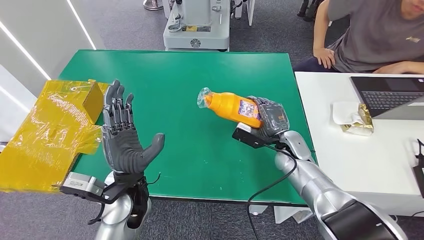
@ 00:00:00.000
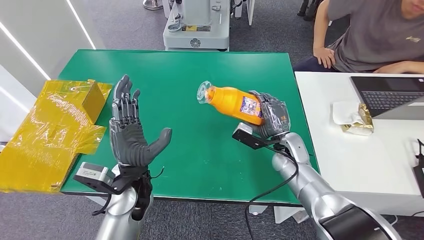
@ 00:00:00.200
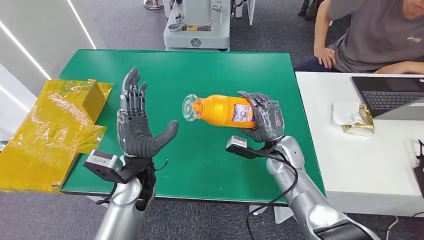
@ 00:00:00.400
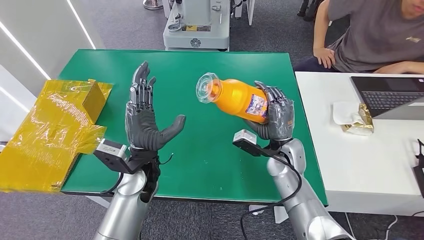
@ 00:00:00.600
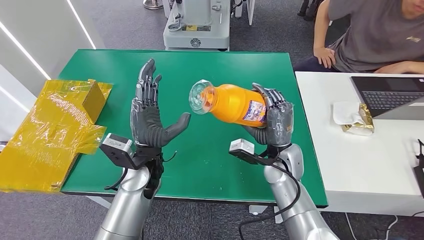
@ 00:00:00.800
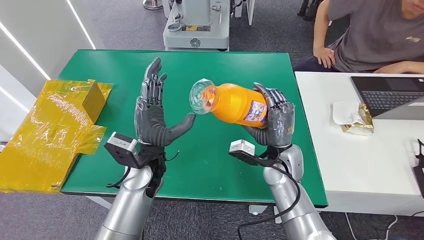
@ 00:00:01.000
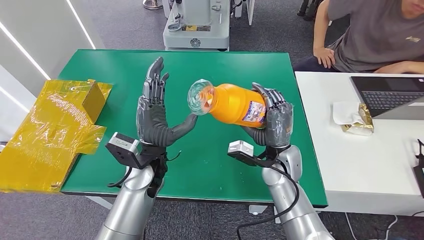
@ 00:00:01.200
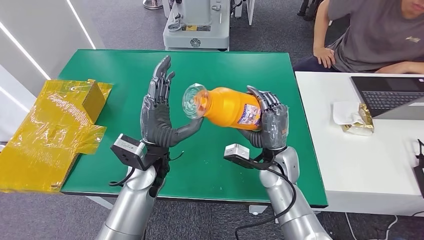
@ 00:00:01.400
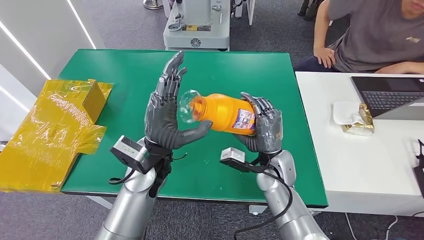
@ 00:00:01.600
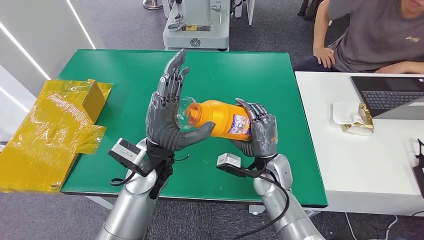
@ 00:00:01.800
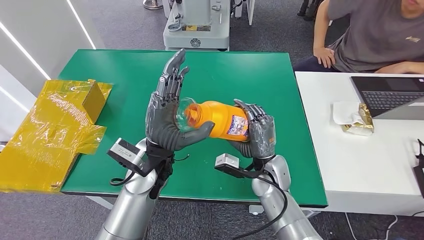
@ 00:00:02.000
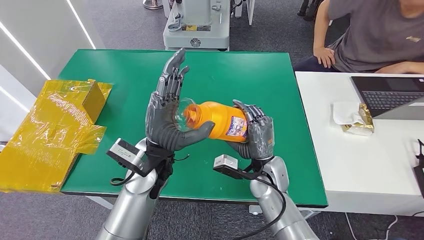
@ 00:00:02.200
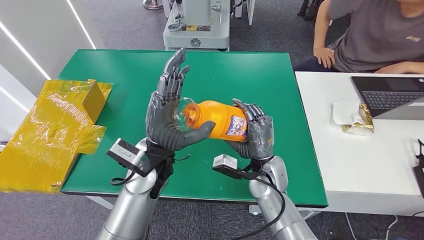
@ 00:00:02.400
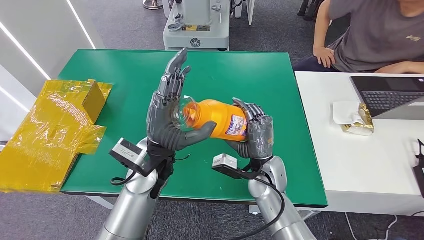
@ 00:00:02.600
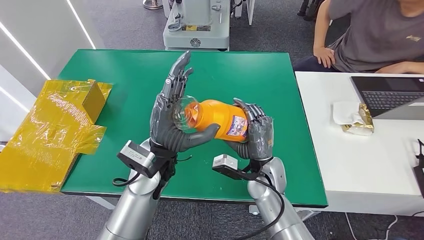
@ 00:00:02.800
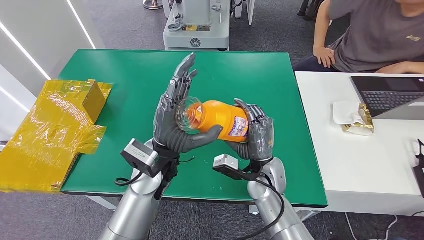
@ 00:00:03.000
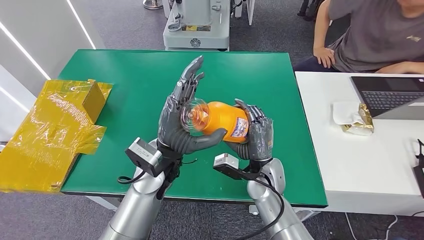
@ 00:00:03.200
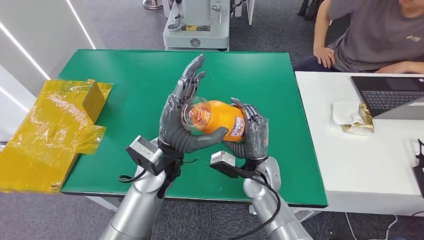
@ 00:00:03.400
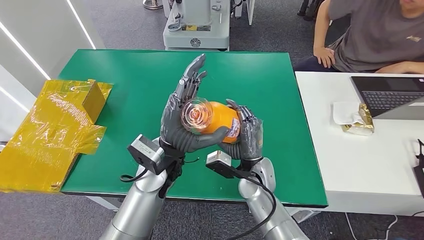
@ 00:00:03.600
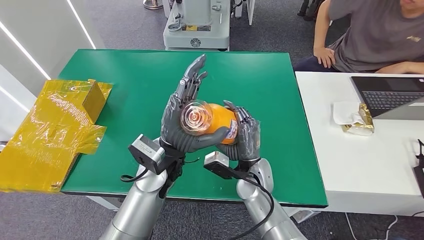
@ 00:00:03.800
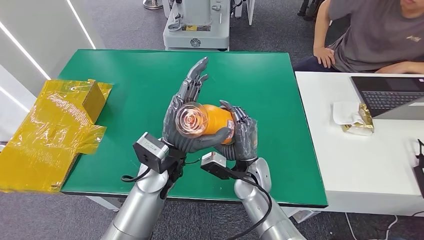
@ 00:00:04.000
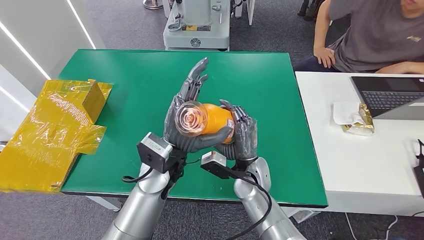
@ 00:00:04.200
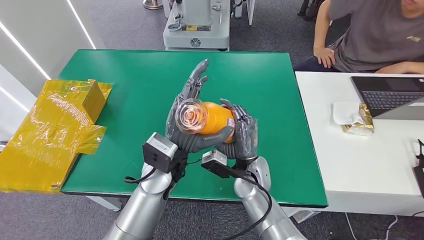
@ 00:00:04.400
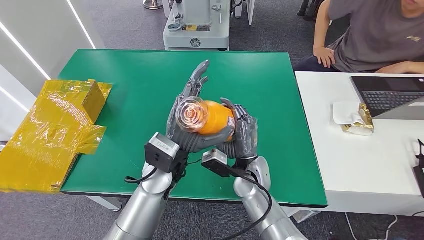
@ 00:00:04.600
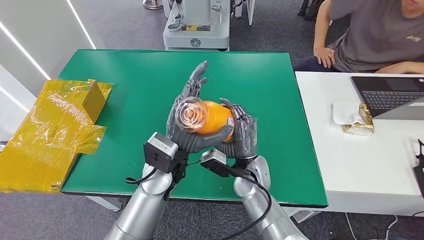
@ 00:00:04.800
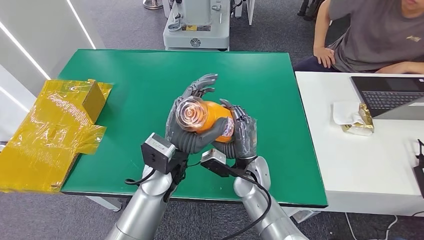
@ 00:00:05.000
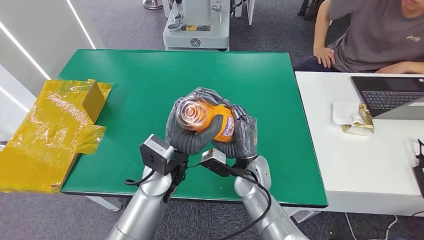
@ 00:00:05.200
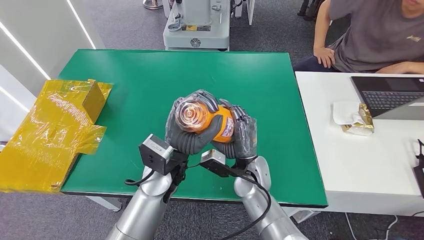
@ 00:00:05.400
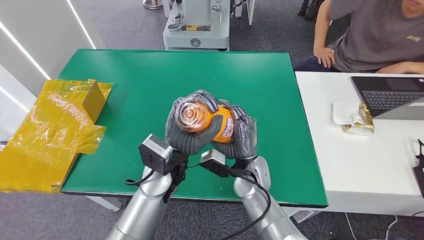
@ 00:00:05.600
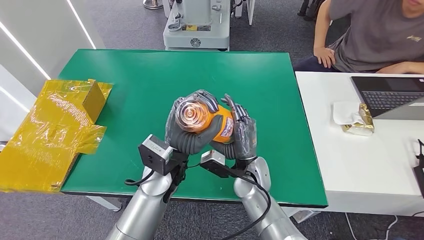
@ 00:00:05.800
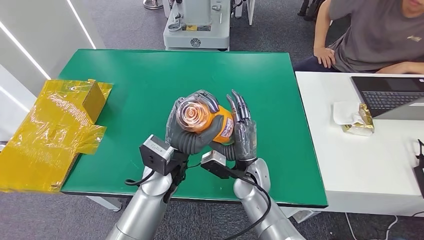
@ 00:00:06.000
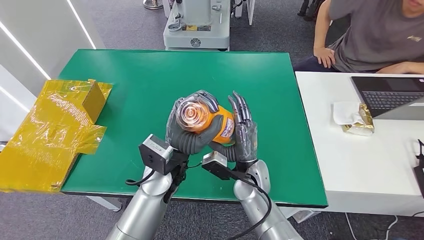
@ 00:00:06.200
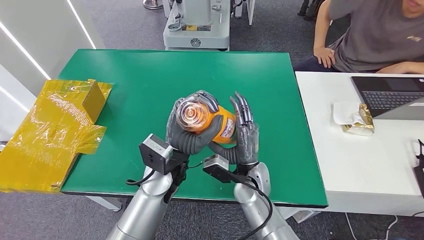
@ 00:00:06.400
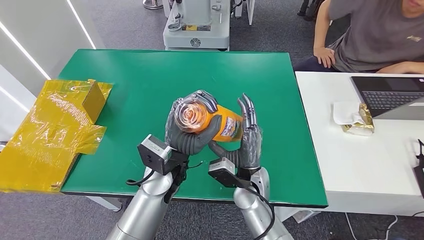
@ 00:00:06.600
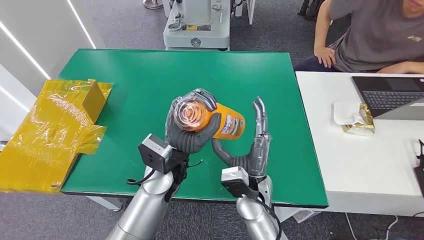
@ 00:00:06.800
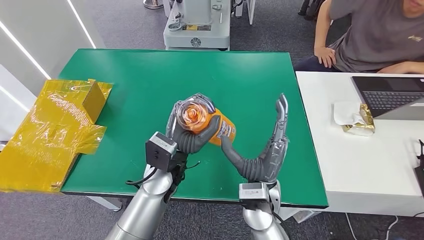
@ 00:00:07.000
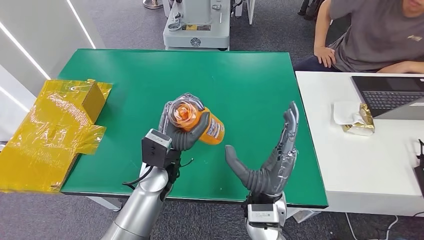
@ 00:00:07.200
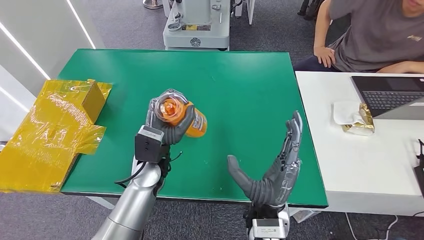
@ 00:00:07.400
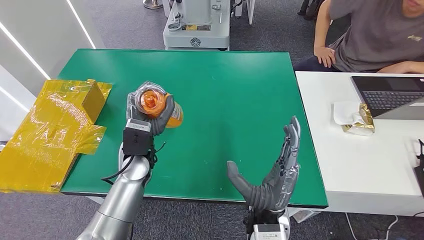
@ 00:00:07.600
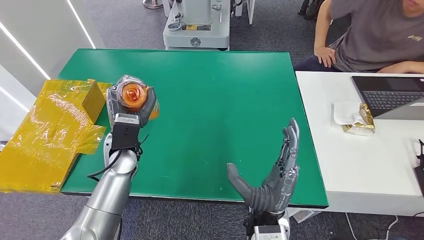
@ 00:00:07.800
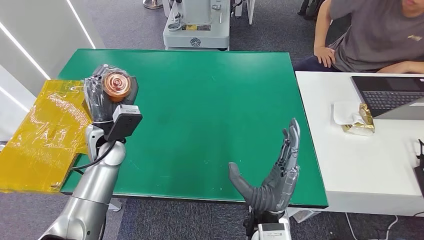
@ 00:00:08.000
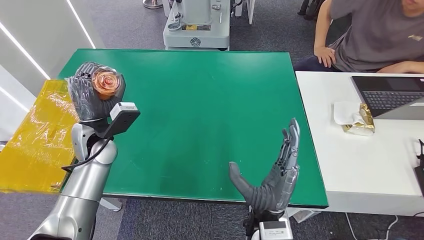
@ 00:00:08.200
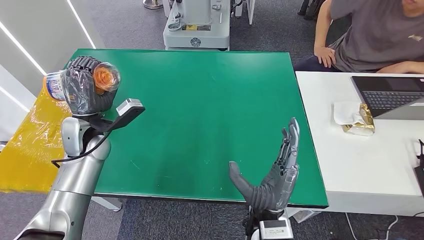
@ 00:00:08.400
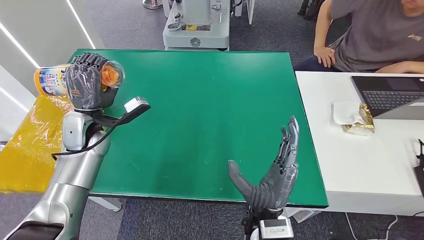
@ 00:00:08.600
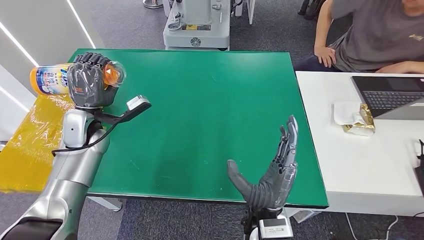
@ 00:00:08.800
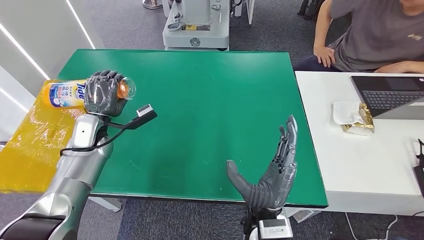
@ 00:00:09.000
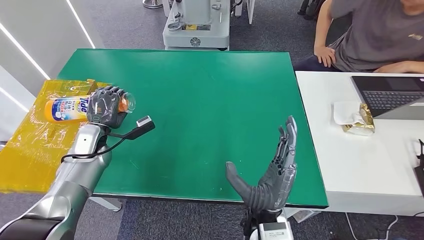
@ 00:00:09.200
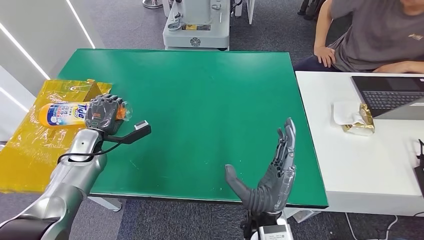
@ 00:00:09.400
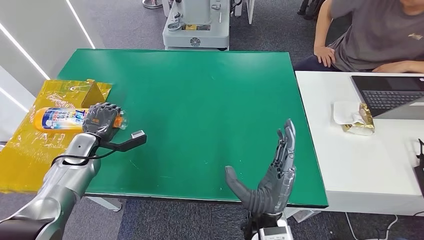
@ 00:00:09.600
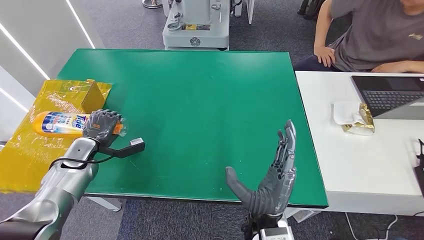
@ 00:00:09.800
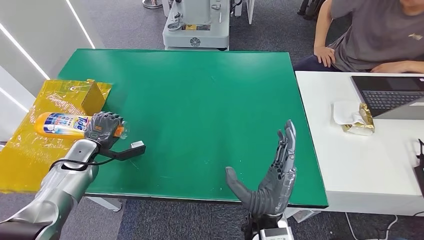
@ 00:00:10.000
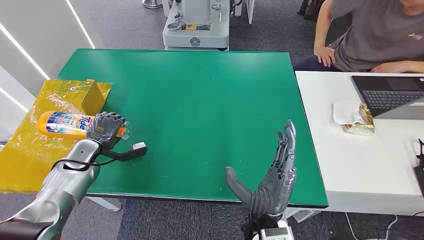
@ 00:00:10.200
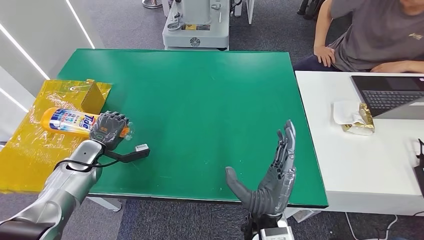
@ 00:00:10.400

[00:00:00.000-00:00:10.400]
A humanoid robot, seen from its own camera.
00:00:00.000 to 00:00:01.400: The right hand goes some 10 cm to the left and backward. The left hand goes approximately 5 cm forward.
00:00:01.400 to 00:00:03.000: The hands stay close to where they were, moving slightly.
00:00:03.000 to 00:00:04.400: The hands stay close to where they were, moving slightly.
00:00:04.400 to 00:00:06.000: Both hands stay put.
00:00:06.000 to 00:00:07.400: The right hand heads backward and upward, covering about 15 cm. The left hand ends up approximately 5 cm from where it was.
00:00:07.400 to 00:00:09.000: The left hand is displaced to the left and forward by approximately 20 cm.
00:00:09.000 to 00:00:10.400: The left hand travels downward and to the left by approximately 10 cm.

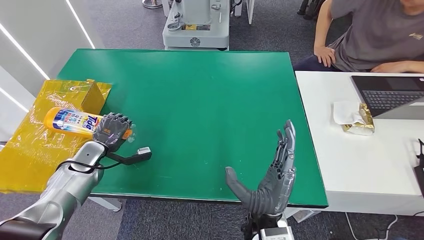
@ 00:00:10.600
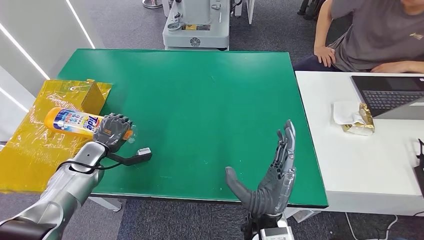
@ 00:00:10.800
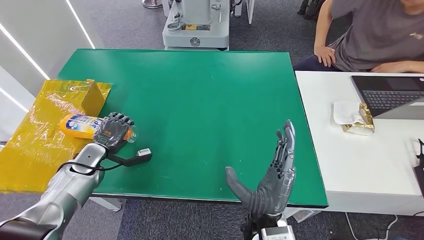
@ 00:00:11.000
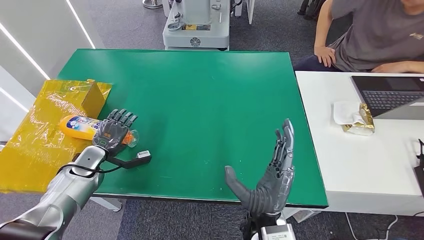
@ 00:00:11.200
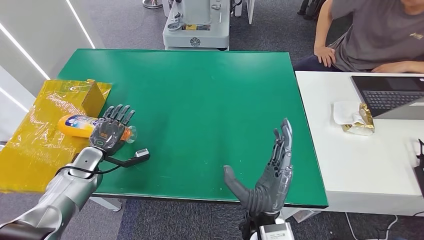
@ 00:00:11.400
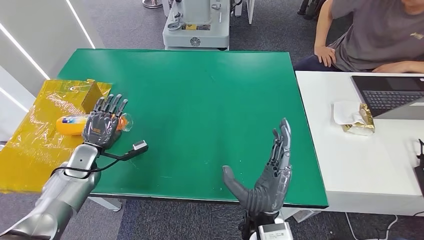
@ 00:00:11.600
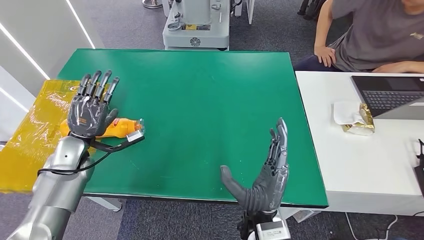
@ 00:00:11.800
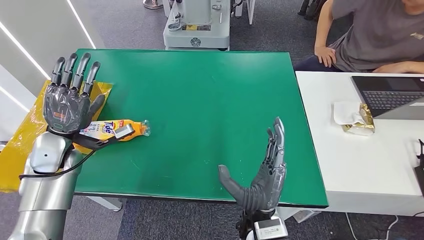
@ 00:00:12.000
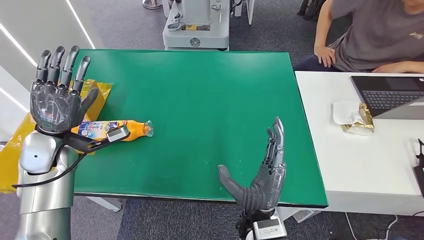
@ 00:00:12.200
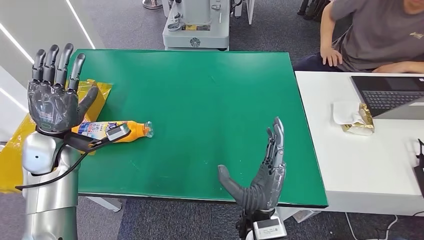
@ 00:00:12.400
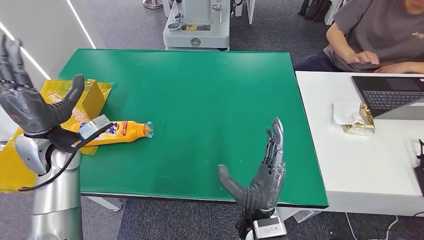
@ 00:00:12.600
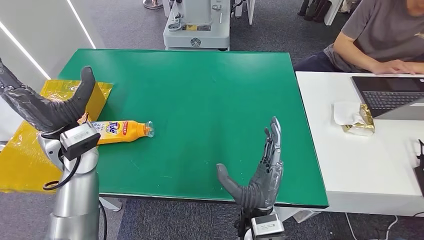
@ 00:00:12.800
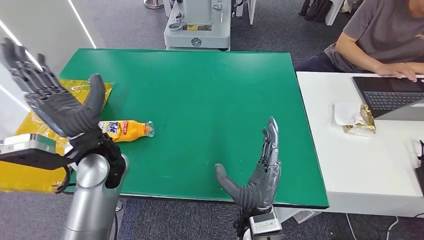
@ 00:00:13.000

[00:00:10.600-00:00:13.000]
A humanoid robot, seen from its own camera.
Step, 00:00:10.600 to 00:00:13.000: Turn the bottle to the front side.
00:00:10.600 to 00:00:11.800: The left hand goes about 5 cm upward.
